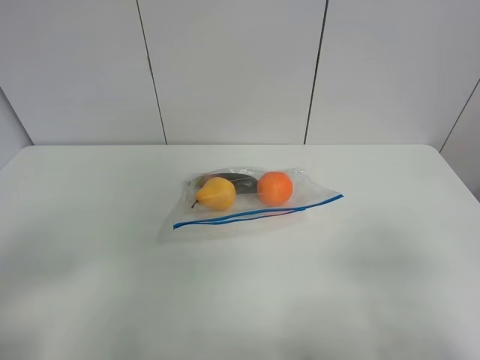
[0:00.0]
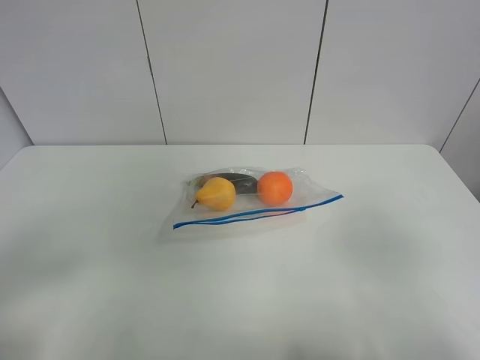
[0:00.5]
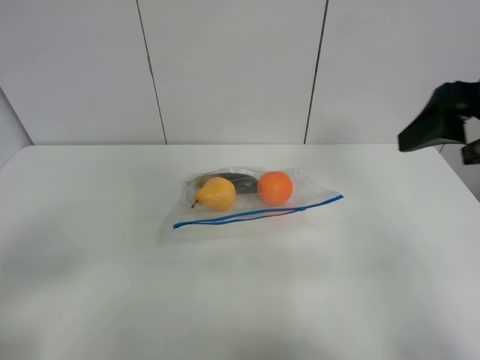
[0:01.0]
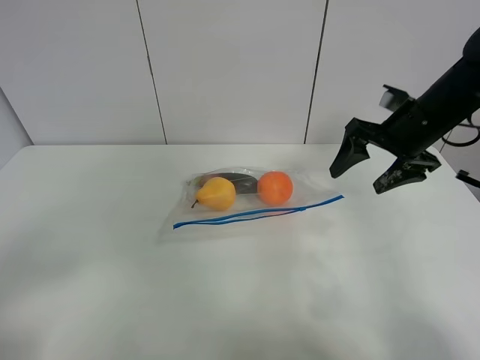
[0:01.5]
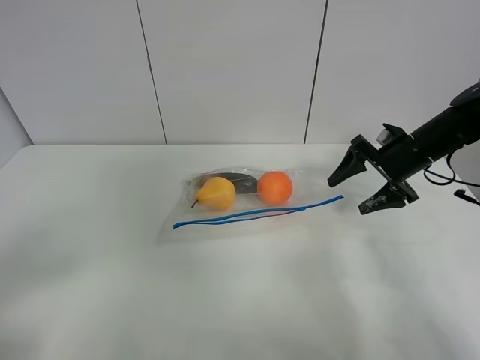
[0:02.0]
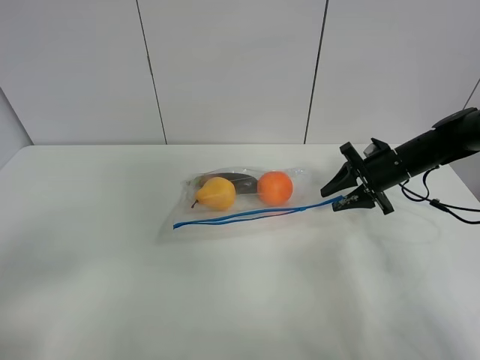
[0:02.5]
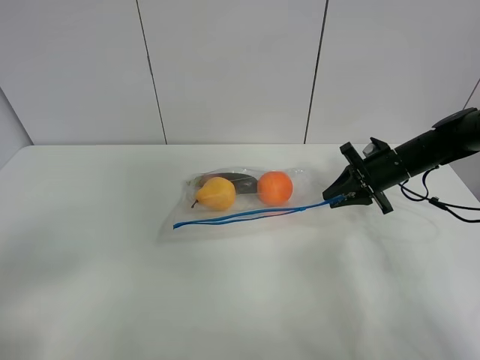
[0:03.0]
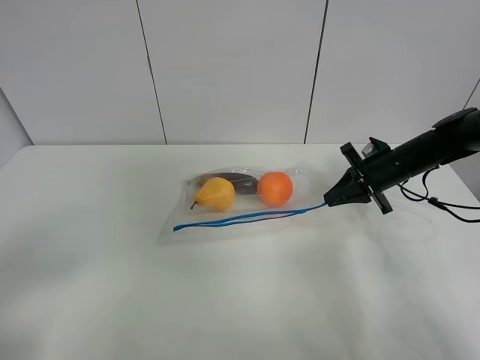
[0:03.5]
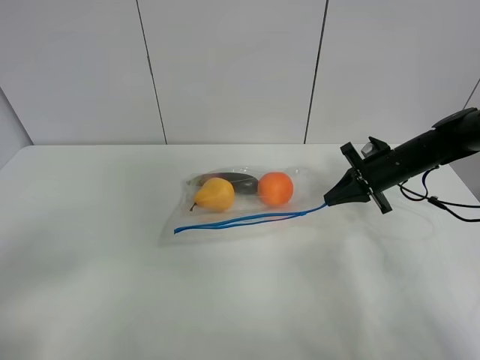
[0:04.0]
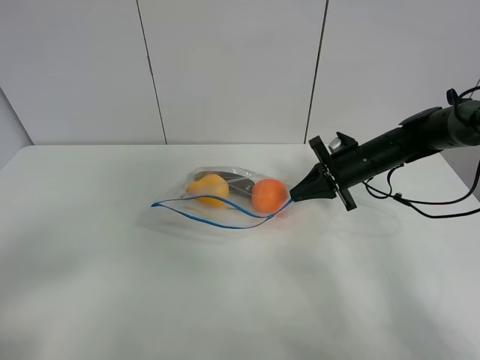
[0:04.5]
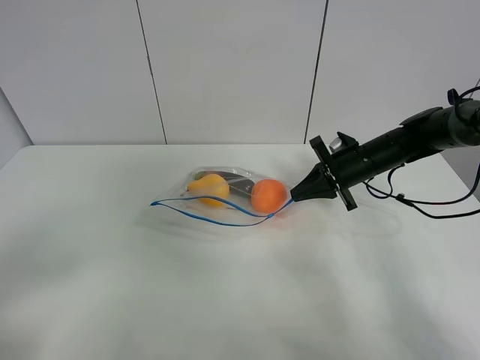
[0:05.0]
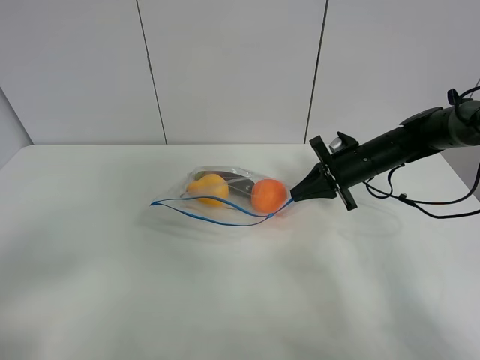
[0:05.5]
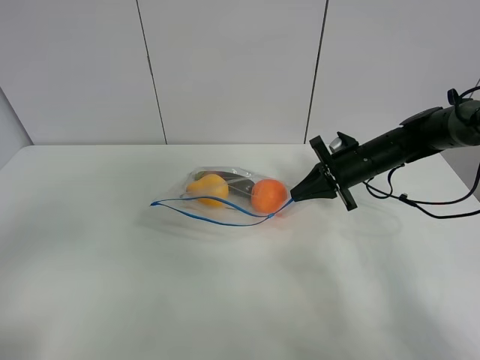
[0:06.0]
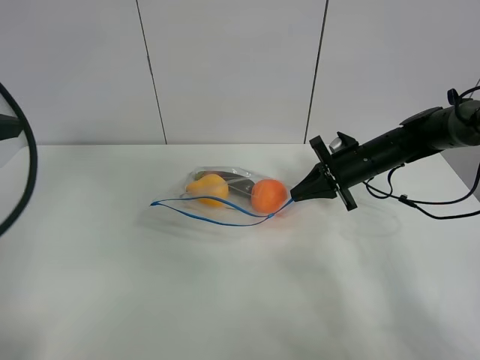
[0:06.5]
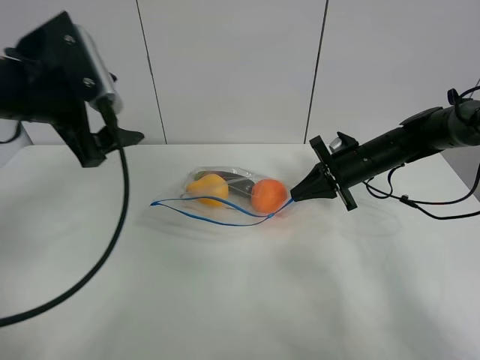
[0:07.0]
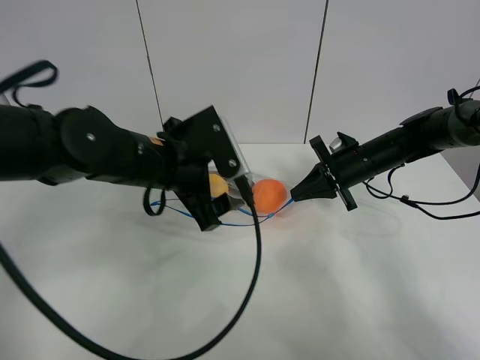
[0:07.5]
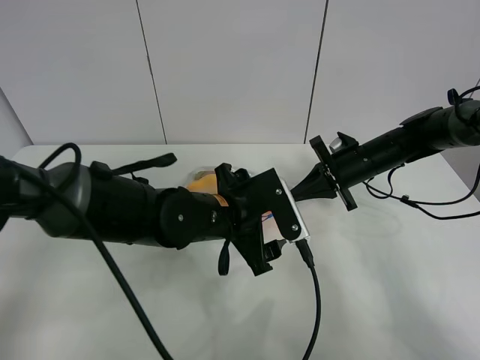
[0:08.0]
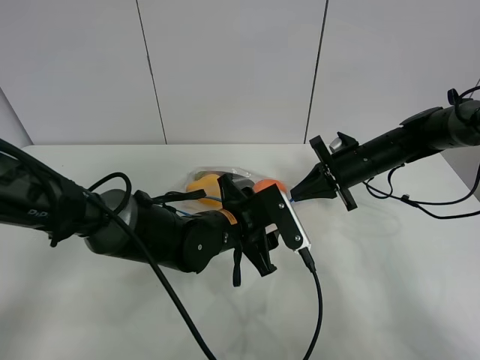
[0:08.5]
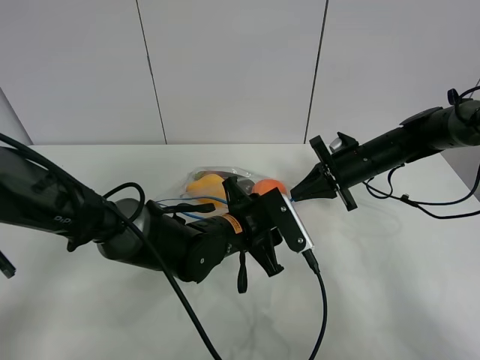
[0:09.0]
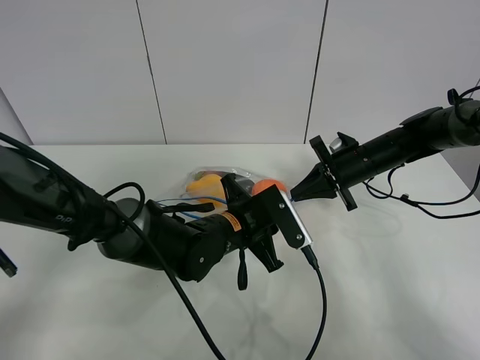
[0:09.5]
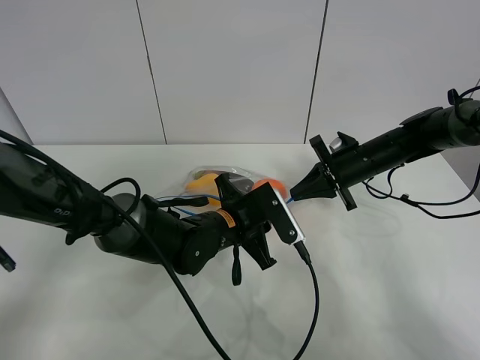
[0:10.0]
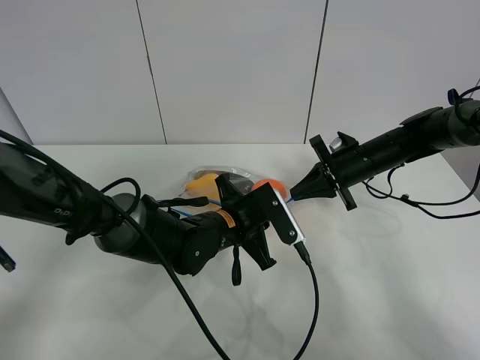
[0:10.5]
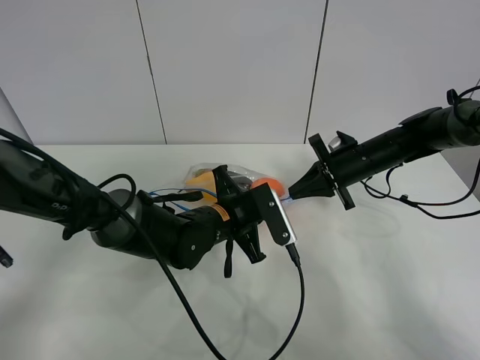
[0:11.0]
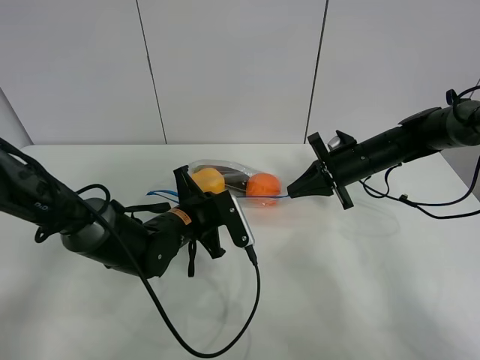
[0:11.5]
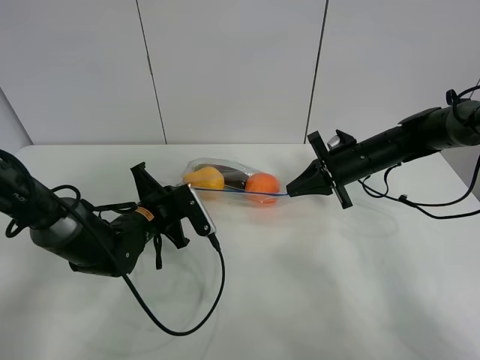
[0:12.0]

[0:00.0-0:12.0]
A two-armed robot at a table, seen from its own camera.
Step, 0:00.0 to 0:03.5: Grasp the fruit bag with right gripper.
Step, 0:04.0 to 0:05.0: Lift the fruit bag with your right gripper.
0:00.0 to 0:02.0: The right gripper is displaced forward by approximately 40 cm.
0:02.0 to 0:04.0: The right gripper closes.
0:04.0 to 0:06.0: The left gripper shifts roughly 5 cm upward. Meanwhile the right gripper is displaced to the left by approximately 5 cm.
0:06.0 to 0:08.0: The left gripper shifts some 40 cm to the right, forward and downward.
0:08.0 to 0:10.0: The left gripper ends up roughly 5 cm from where it was, and closes up.
0:10.0 to 0:12.0: The left gripper heads to the left, covering approximately 15 cm.

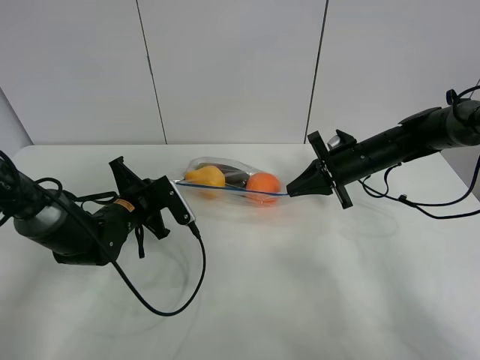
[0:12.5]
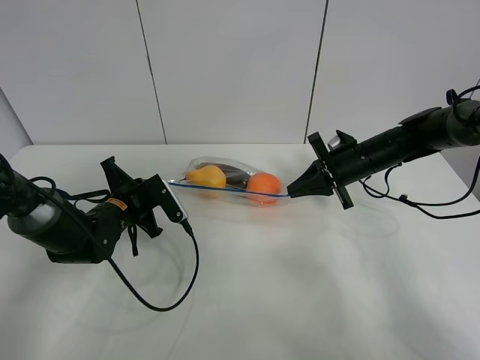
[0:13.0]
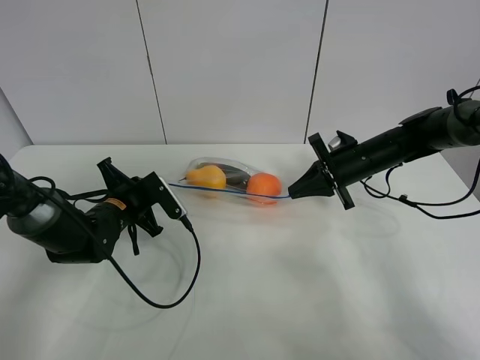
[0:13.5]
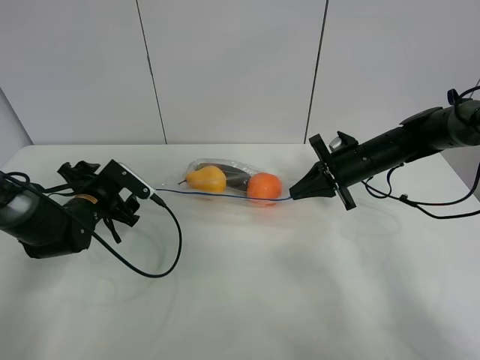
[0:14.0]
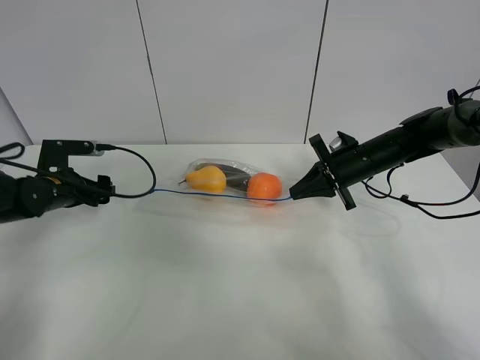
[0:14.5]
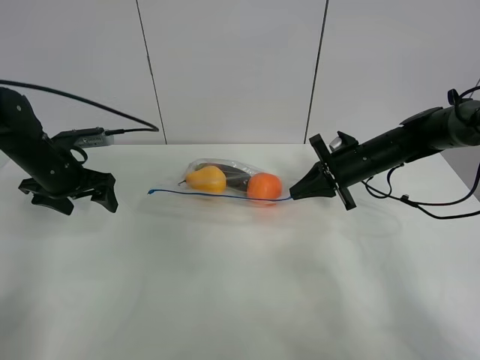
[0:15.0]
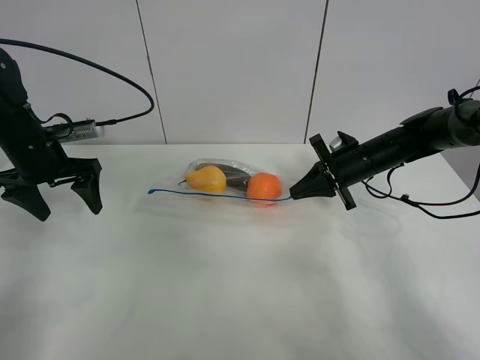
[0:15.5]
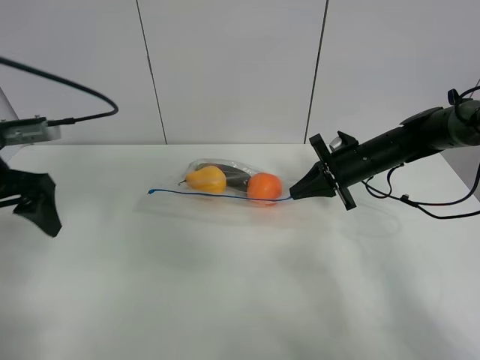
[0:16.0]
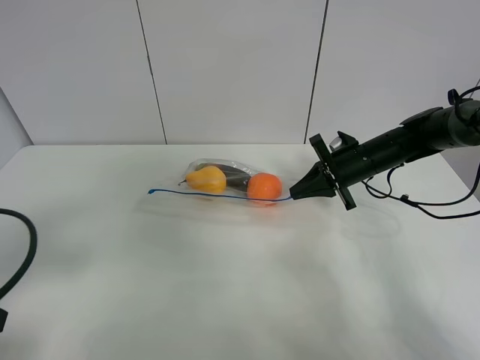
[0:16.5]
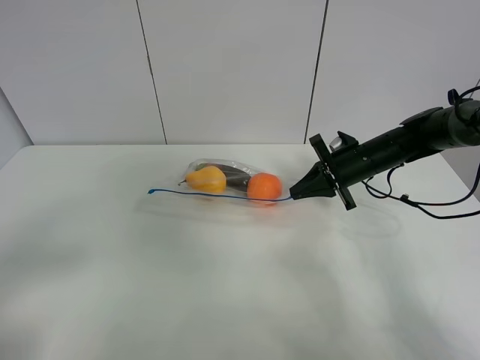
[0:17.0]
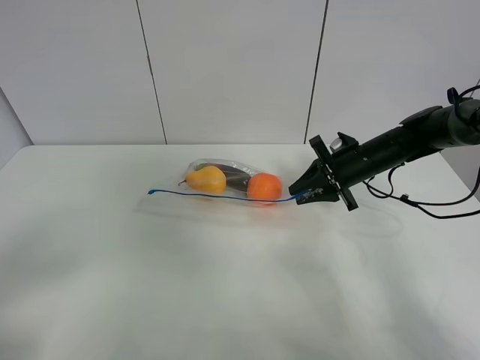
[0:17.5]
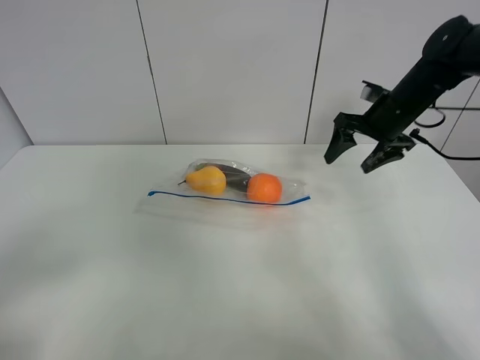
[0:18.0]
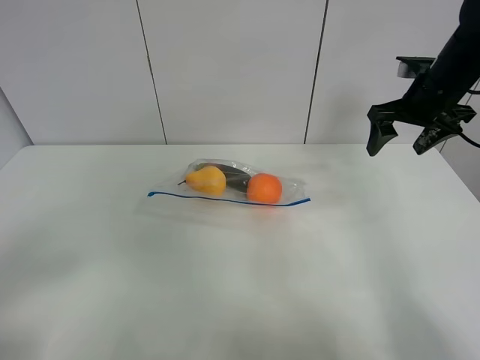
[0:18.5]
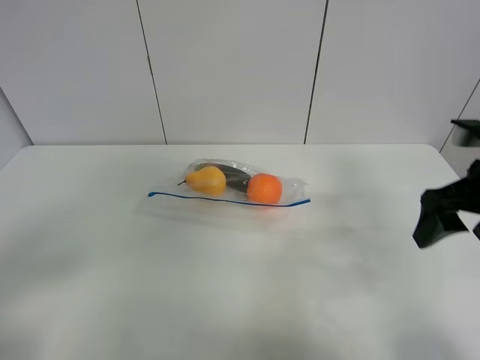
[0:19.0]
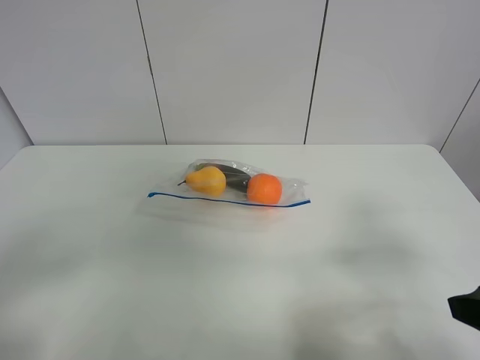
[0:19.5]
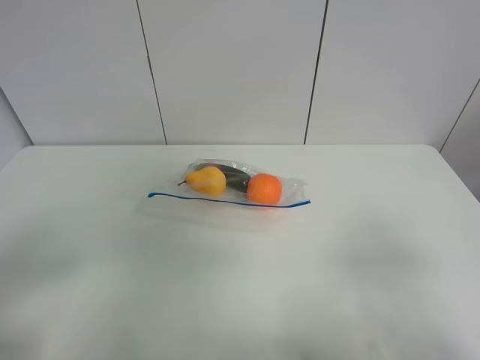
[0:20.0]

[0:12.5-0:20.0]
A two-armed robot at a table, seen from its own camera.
0:12.5 to 0:14.5: The left gripper is displaced to the left by roughly 15 cm, and opens.
0:14.5 to 0:16.5: The left gripper shifts about 30 cm backward and upward.
0:16.5 to 0:18.0: The right gripper is displaced upward by approximately 10 cm, and opens. The left gripper moves backward, some 10 cm.
0:18.0 to 0:20.0: The right gripper travels backward by approximately 40 cm.

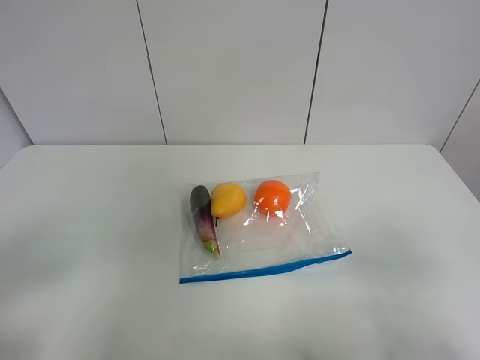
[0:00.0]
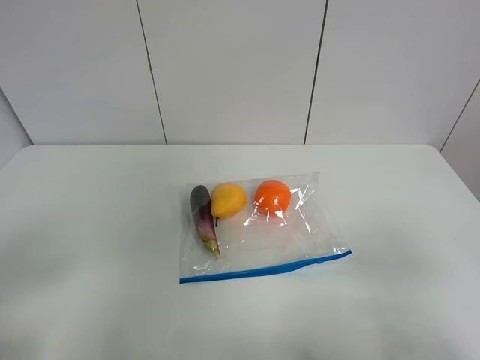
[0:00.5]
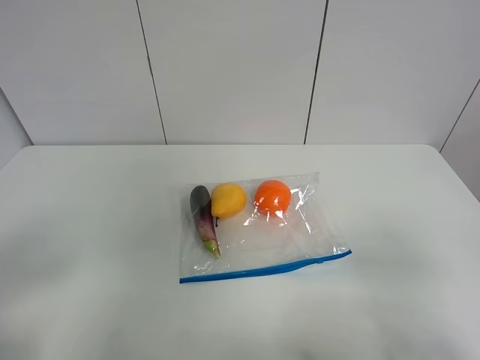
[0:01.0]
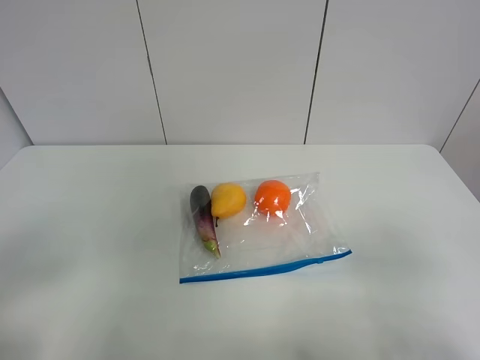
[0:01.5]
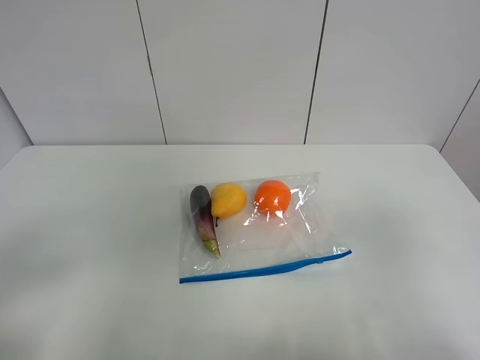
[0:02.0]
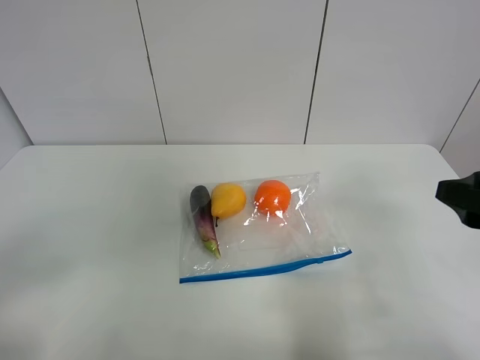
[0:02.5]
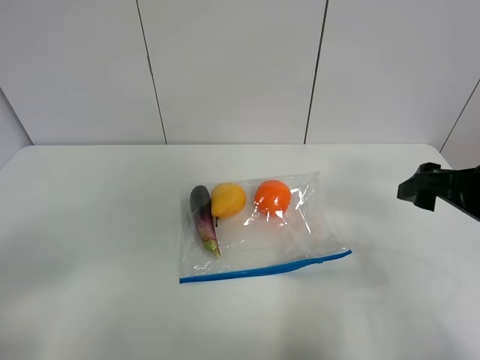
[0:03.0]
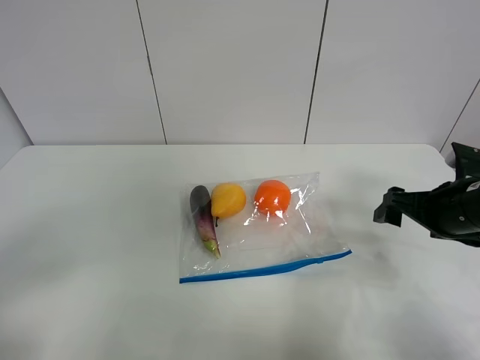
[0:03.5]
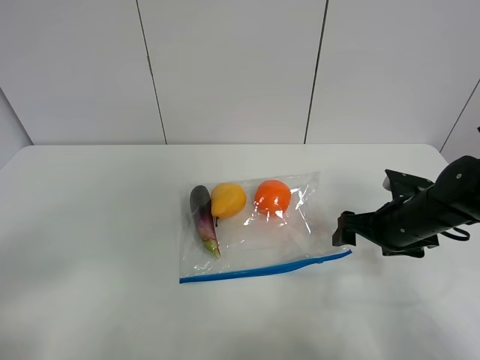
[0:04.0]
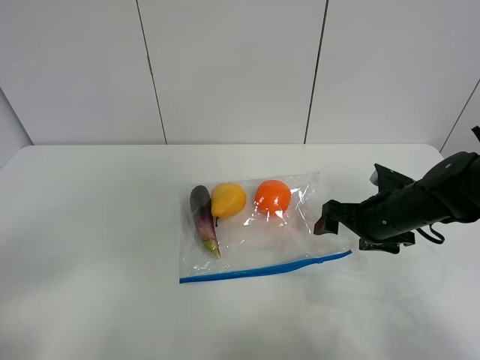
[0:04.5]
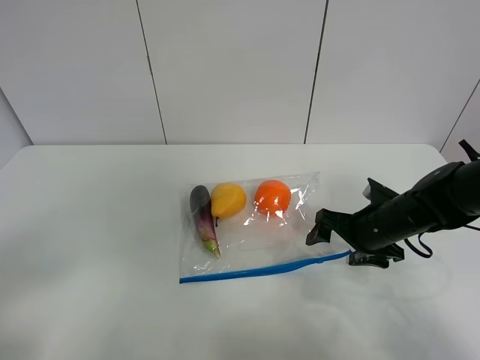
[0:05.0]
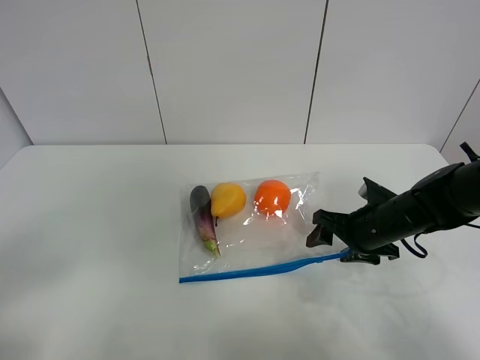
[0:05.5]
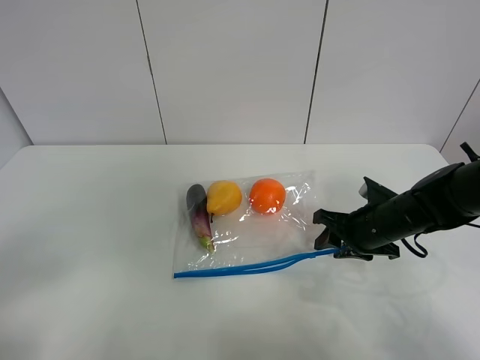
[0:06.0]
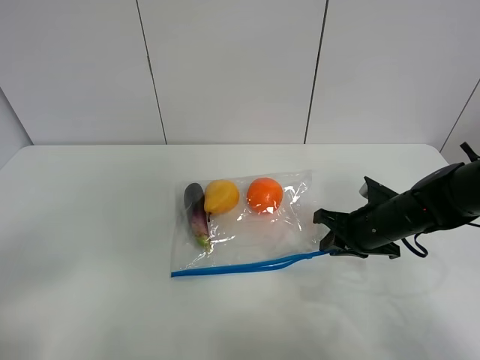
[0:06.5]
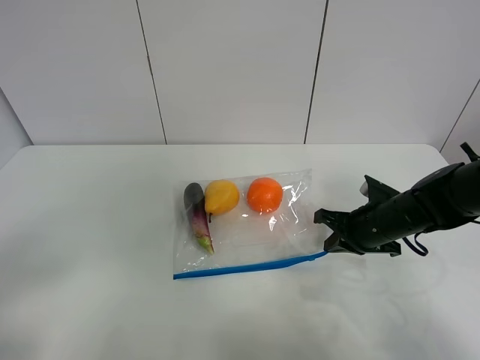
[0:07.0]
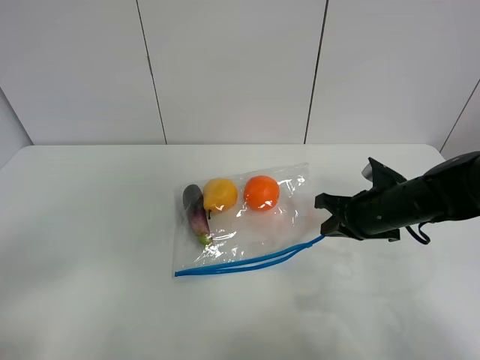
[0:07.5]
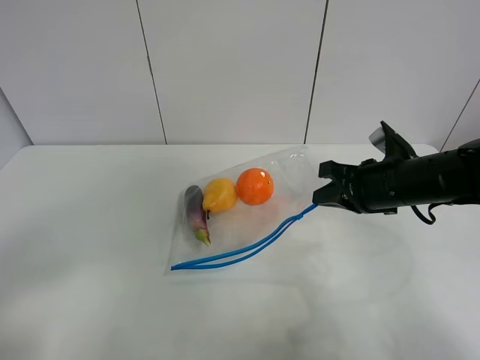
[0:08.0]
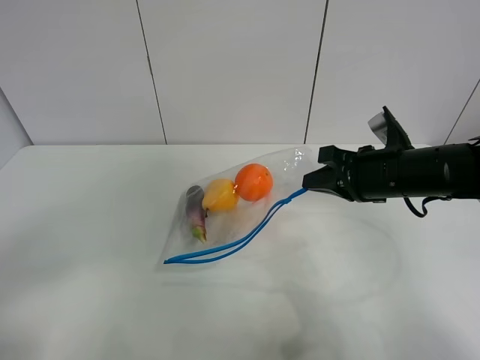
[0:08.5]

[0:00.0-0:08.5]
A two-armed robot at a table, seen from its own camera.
Step, 0:00.0 to 0:06.5: Grasp the fruit bag with right gripper.
0:02.0 to 0:04.0: The right gripper heads forward and downward, covering roughly 30 cm.
0:04.0 to 0:06.5: The right gripper closes its fingers.
0:06.5 to 0:08.5: The right gripper is displaced upward by roughly 10 cm.
